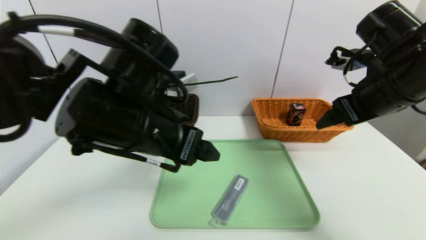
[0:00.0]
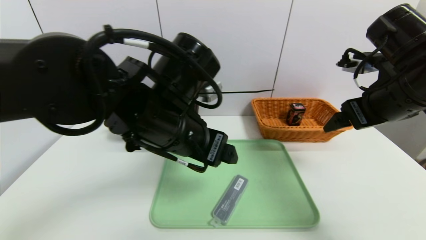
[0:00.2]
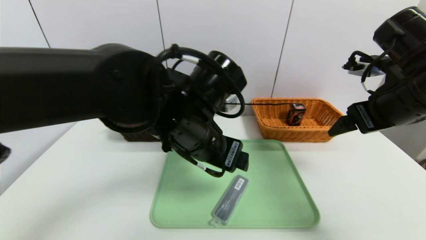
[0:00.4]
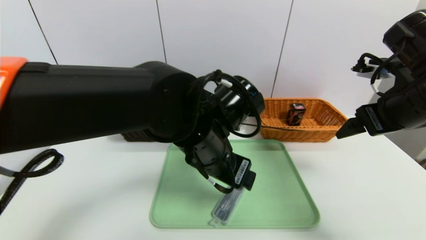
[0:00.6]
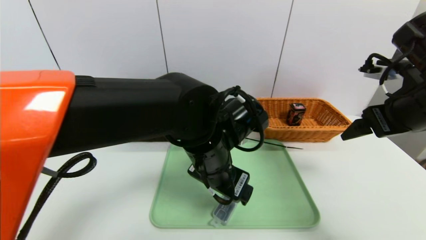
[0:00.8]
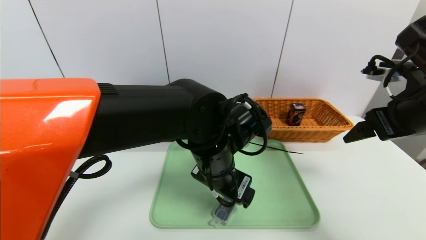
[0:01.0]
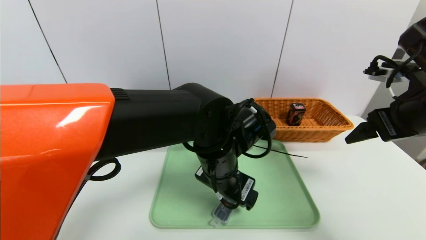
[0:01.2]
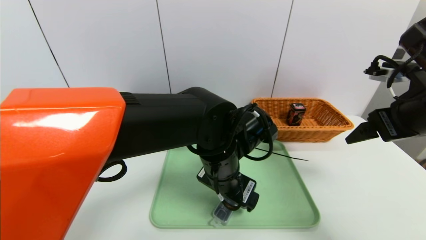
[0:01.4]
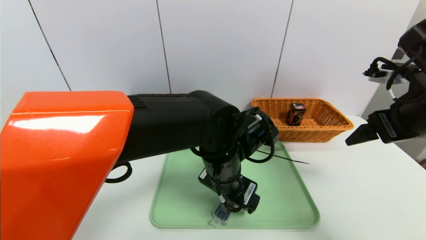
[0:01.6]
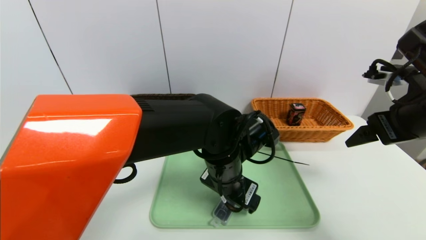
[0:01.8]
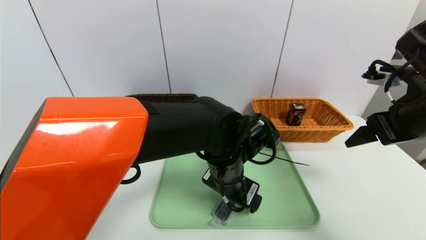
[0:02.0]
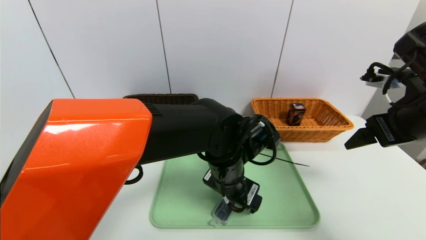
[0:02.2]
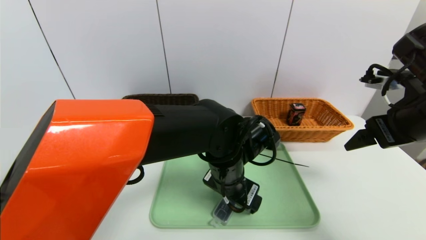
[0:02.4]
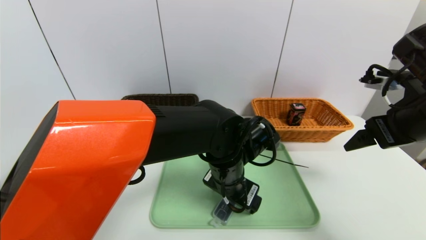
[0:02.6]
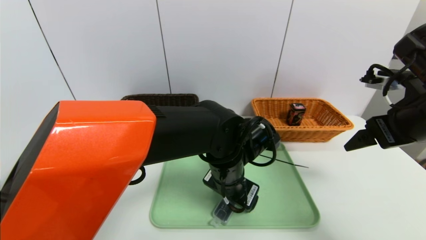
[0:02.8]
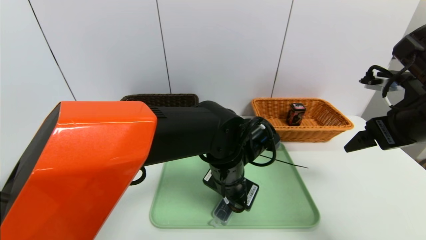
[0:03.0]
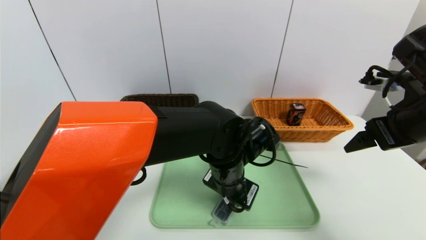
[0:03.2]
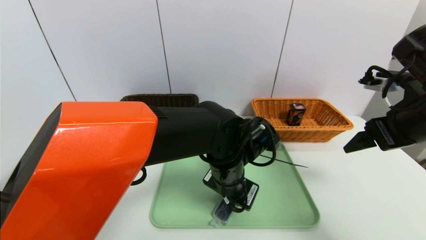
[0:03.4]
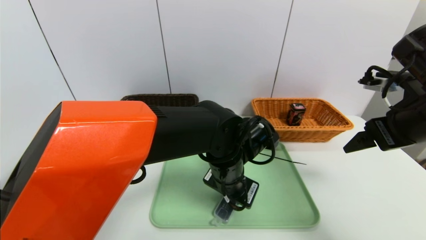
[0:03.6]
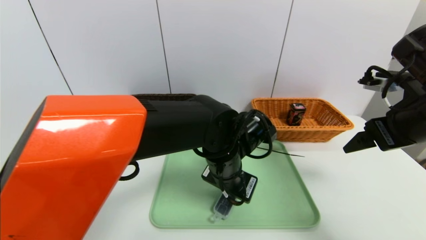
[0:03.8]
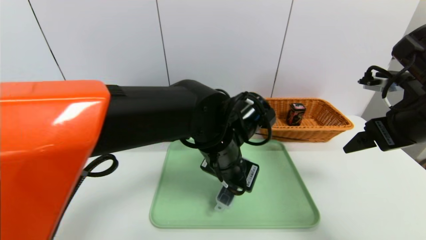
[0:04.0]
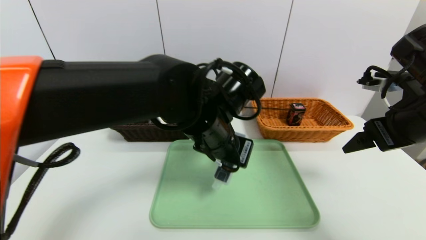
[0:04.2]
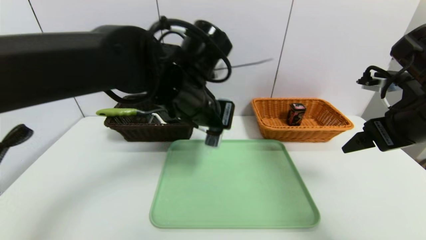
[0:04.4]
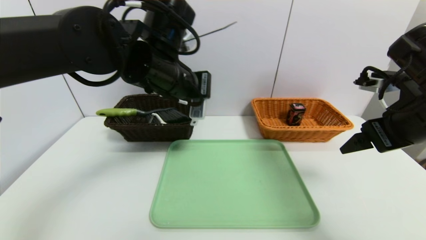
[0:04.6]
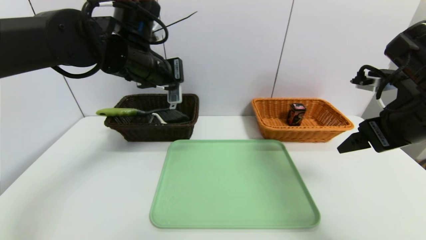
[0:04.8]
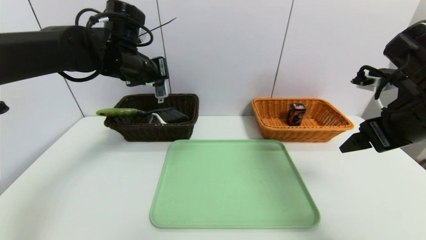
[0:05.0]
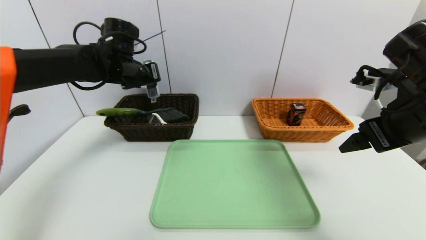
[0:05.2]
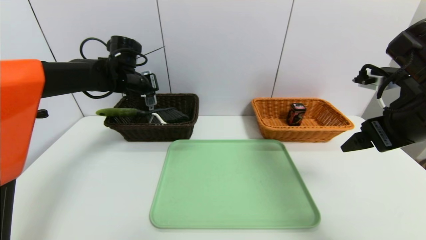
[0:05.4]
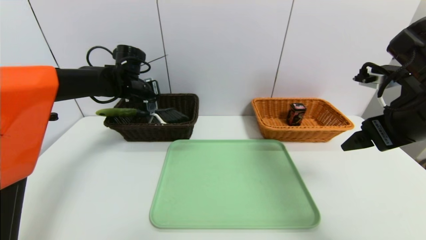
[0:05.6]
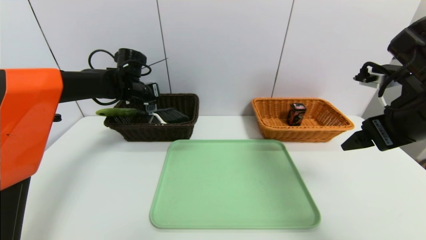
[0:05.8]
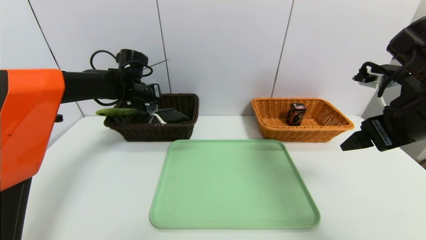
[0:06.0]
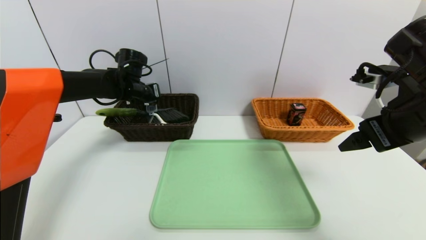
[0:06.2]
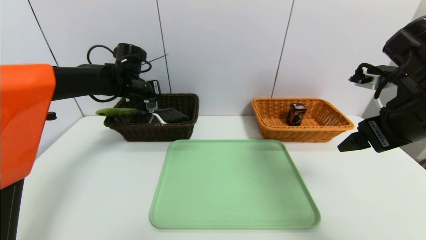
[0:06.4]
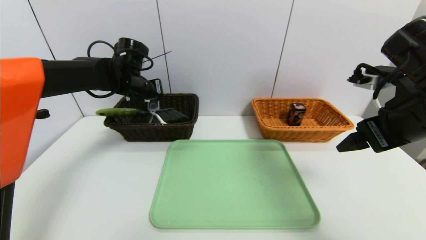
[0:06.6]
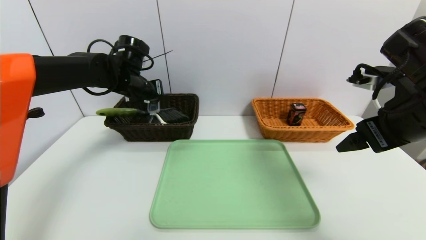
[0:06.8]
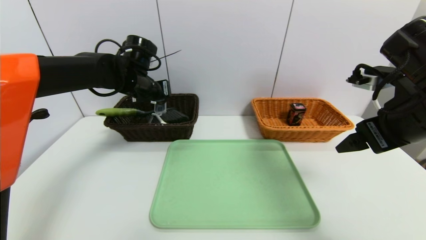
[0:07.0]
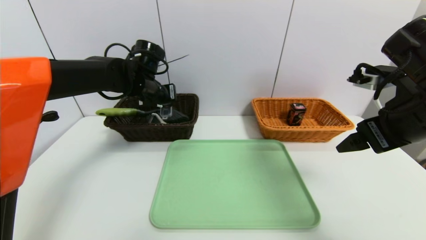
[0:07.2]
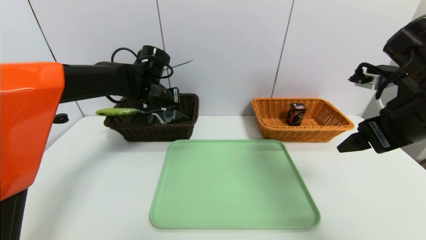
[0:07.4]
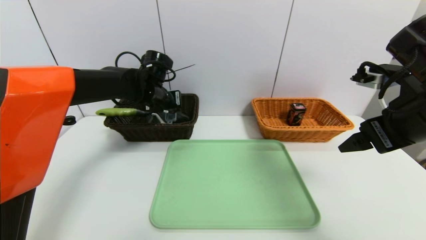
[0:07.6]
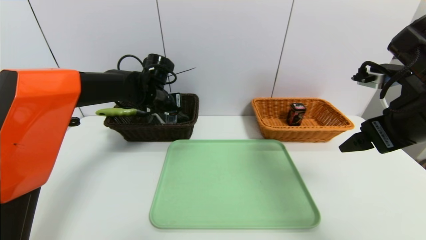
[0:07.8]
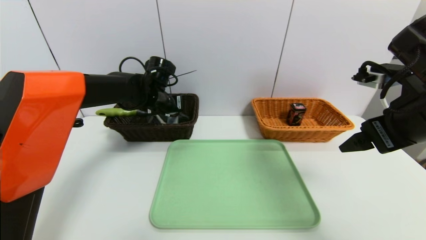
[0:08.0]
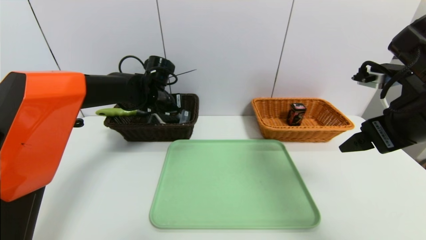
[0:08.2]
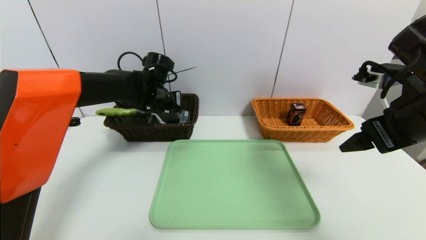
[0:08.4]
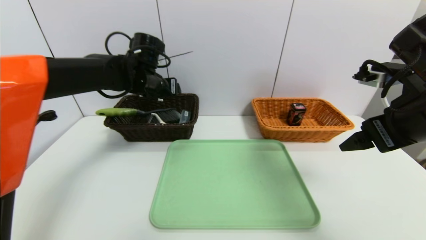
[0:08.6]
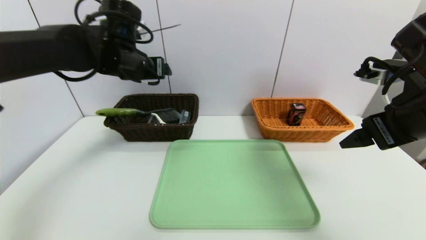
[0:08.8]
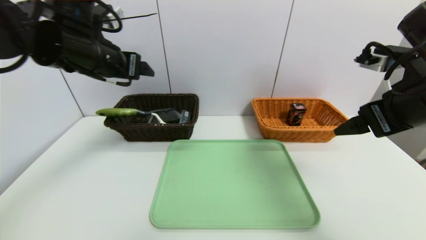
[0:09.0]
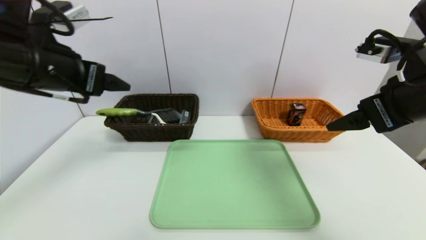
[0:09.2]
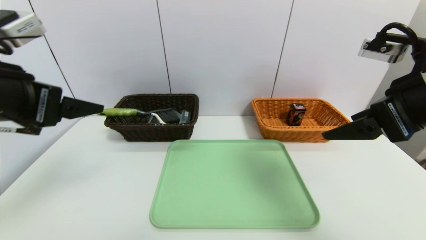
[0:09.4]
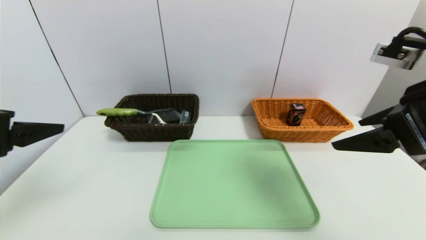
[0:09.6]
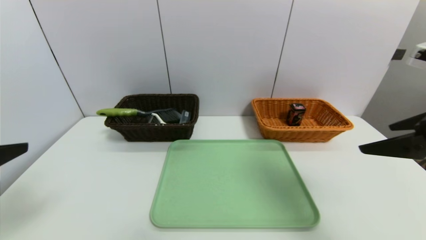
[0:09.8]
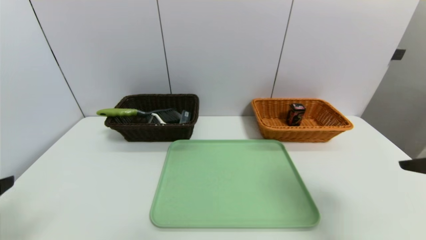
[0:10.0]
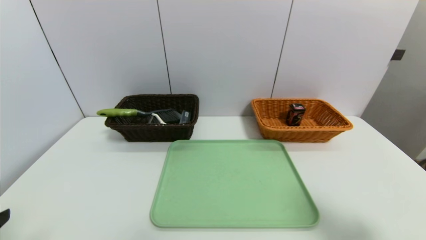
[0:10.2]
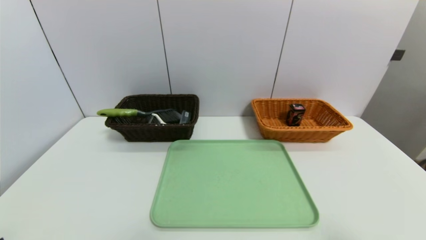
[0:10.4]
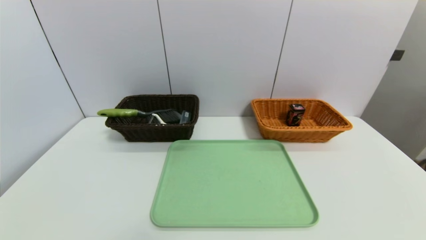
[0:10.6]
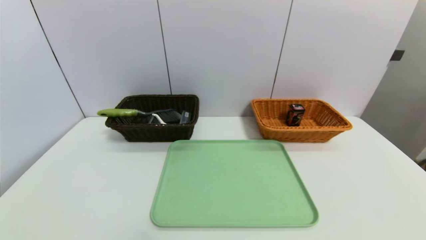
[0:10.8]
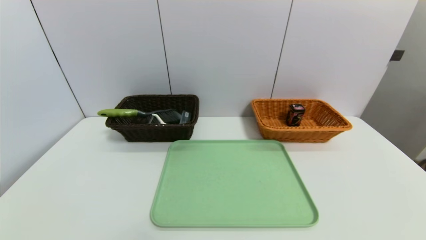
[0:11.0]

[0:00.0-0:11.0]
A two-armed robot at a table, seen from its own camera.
Task of the whole recording: place the food in the right basket with the right gripper, and place the non food items in the left basket with the left gripper.
Step, 0:00.0 to 0:08.4: Grasp the compass and put it in the left basket.
0:00.0 to 0:01.6: The right gripper changes place by approximately 5 cm. Meanwhile the left gripper moves to the right and downward, roughly 15 cm.
0:01.6 to 0:03.2: The left gripper closes.
0:03.2 to 0:04.8: The left gripper shifts roughly 25 cm to the left, upward and forward.
0:04.8 to 0:06.2: The left gripper shifts some 15 cm forward, downward and to the left.
0:06.2 to 0:07.8: The left gripper heads to the right, covering roughly 5 cm.
0:07.8 to 0:09.4: The left gripper goes approximately 30 cm backward, upward and to the left, and opens its fingers.
0:09.4 to 0:11.0: The two grippers go about 30 cm backward and downward.

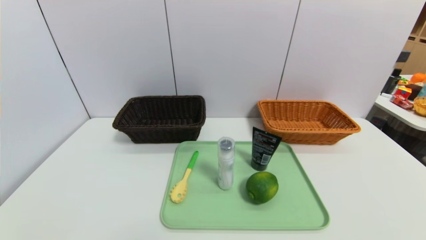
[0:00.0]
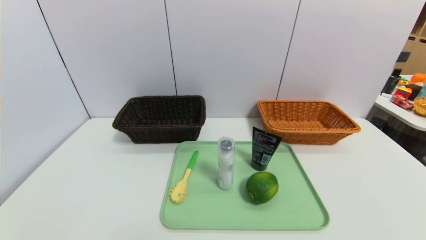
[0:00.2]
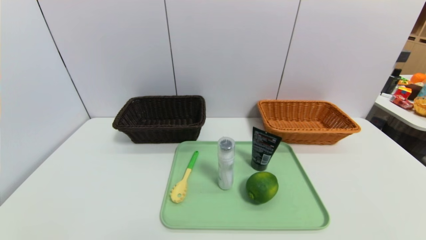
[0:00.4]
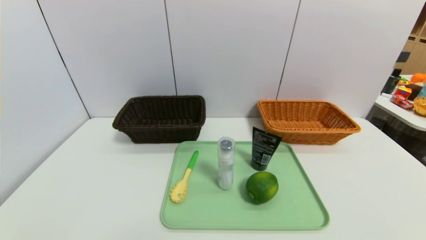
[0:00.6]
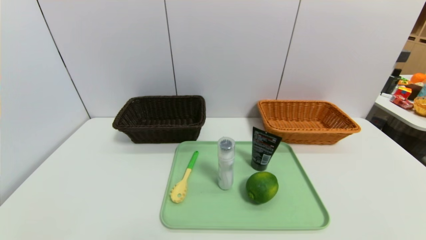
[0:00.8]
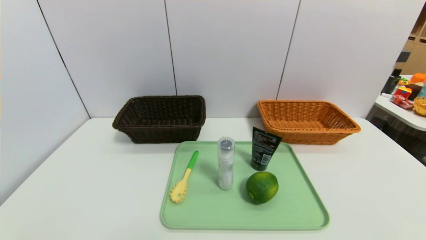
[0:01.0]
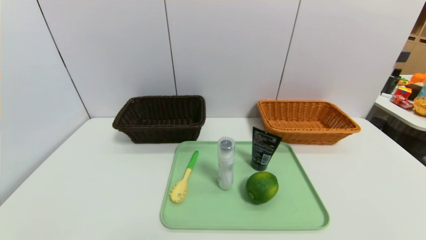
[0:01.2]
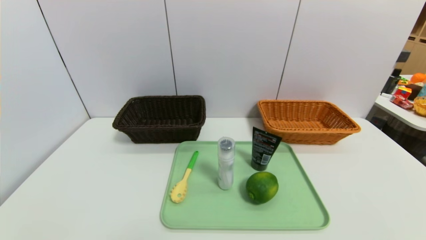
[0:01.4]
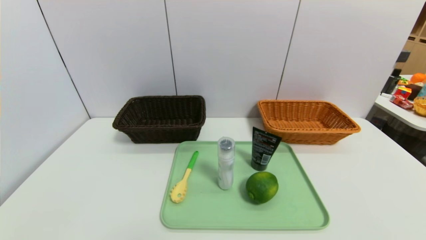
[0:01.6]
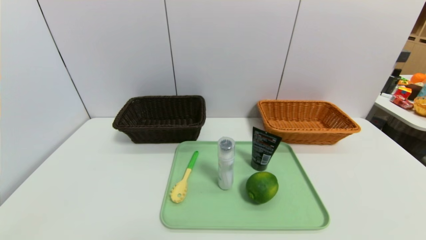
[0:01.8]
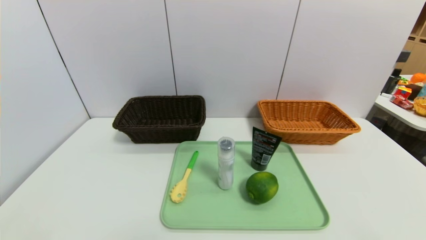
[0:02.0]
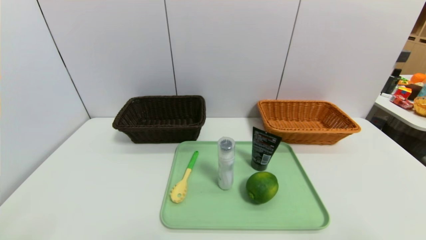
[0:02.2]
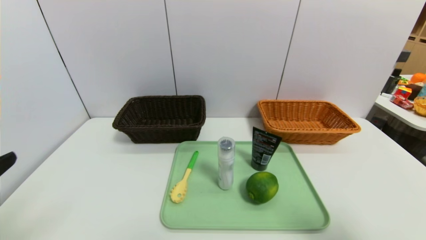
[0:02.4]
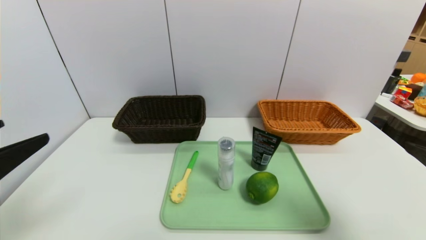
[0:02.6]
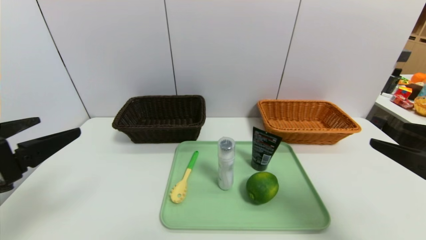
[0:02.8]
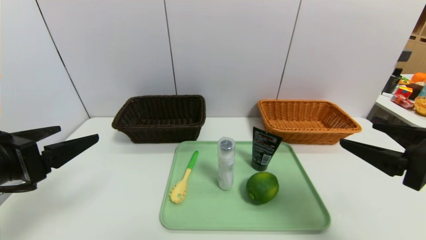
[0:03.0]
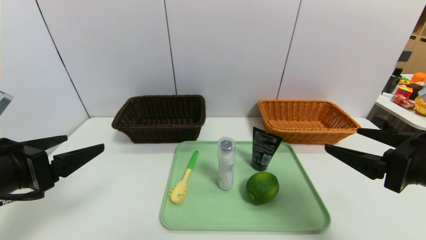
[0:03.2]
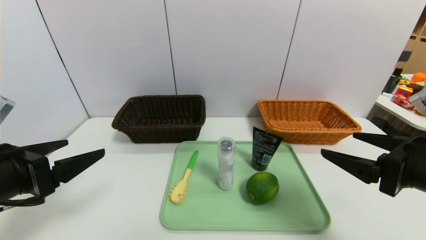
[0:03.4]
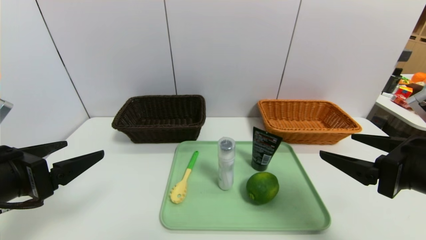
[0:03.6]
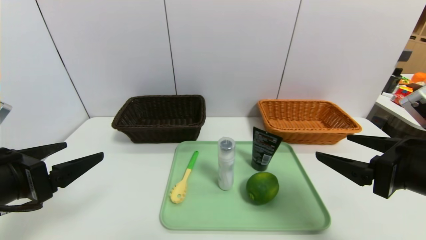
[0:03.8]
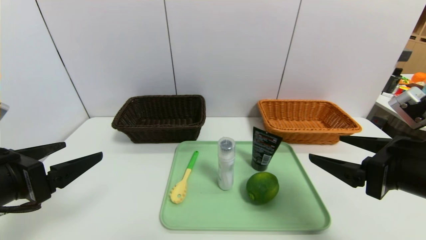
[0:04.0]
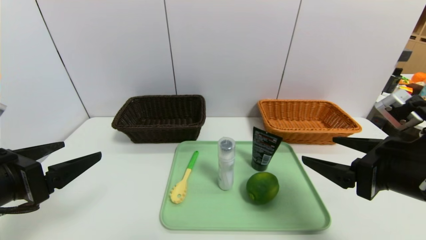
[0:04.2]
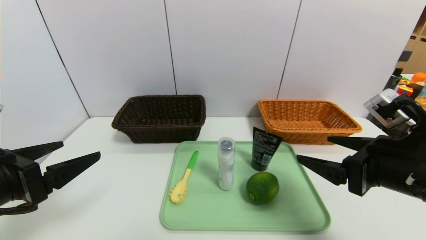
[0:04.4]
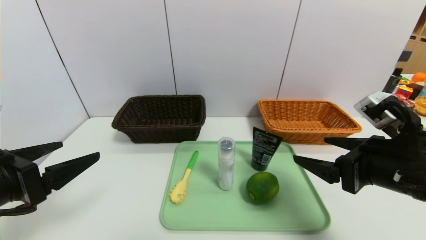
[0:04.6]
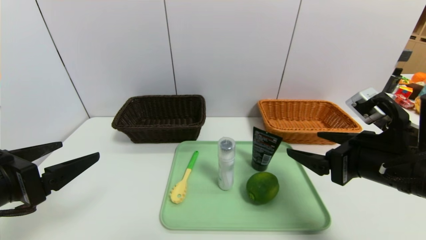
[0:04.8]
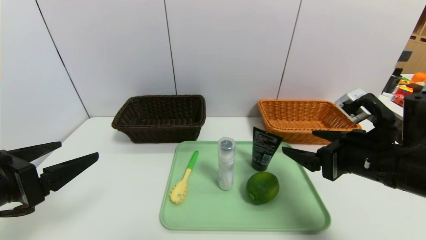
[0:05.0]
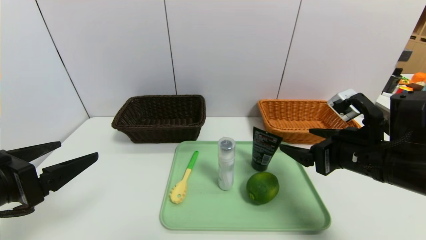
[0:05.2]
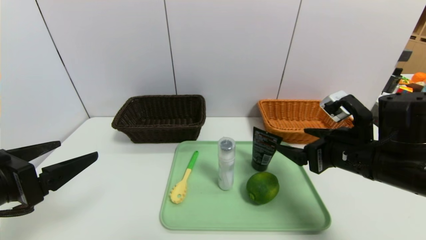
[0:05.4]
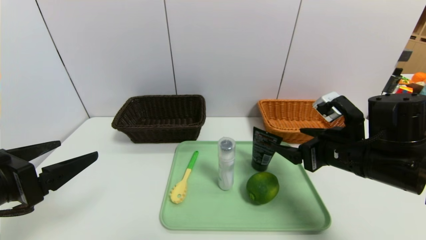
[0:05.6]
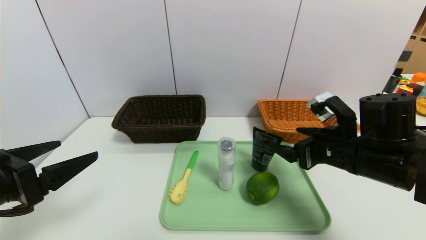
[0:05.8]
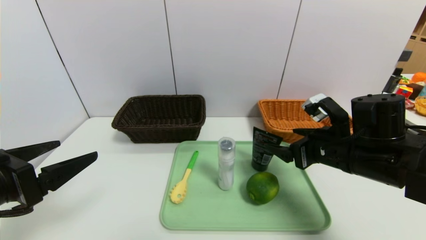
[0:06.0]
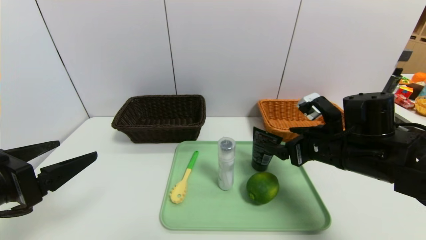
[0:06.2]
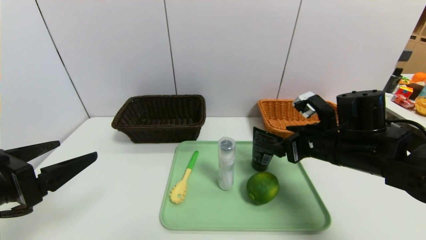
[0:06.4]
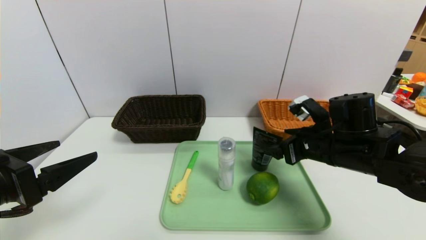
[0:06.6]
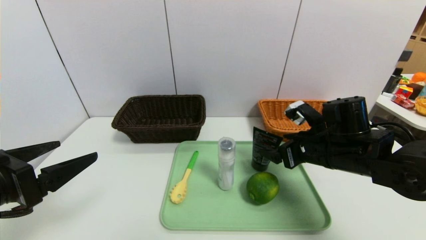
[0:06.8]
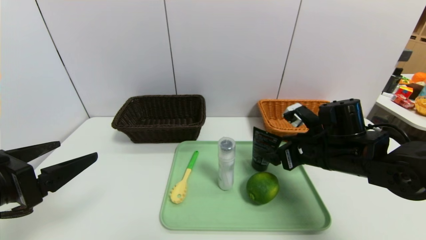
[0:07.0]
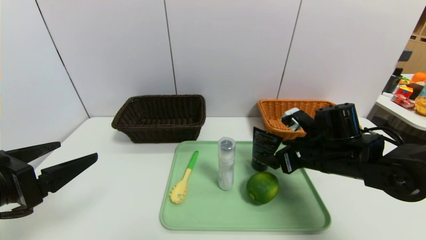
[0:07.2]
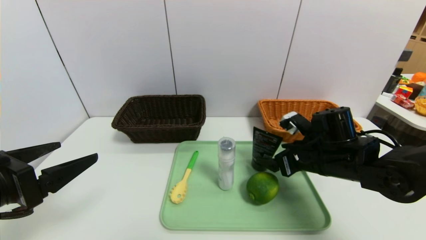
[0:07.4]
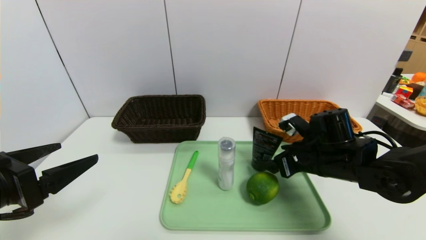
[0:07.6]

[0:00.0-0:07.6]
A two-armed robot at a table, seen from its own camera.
Task of the whole recording: place the food in the right basket with the right gripper, and place the non food items in the left basket with the left gripper.
0:01.6 to 0:03.0: Both grippers move forward and upward, some 20 cm.
0:03.0 to 0:04.6: The right gripper changes place by some 5 cm.
0:04.6 to 0:06.0: The right gripper travels forward by roughly 5 cm.
0:06.0 to 0:07.6: The right gripper changes place by some 5 cm.
